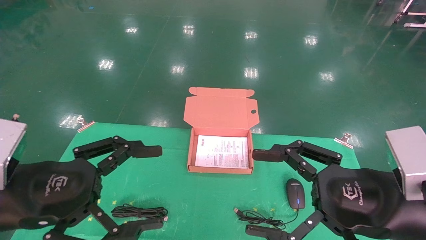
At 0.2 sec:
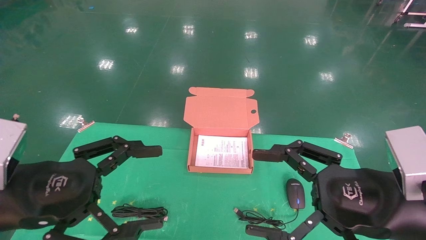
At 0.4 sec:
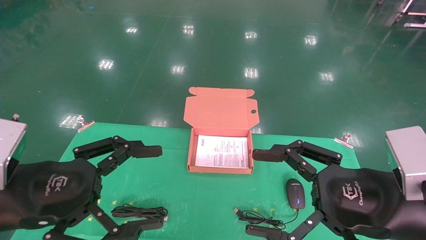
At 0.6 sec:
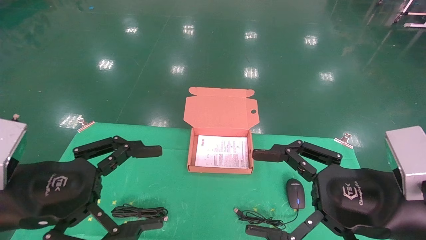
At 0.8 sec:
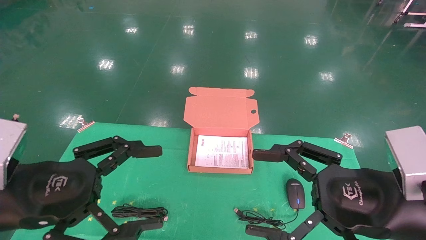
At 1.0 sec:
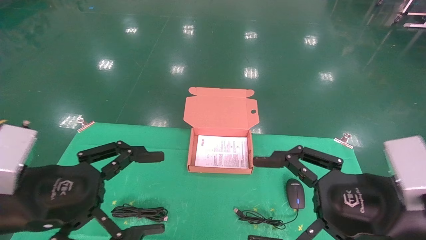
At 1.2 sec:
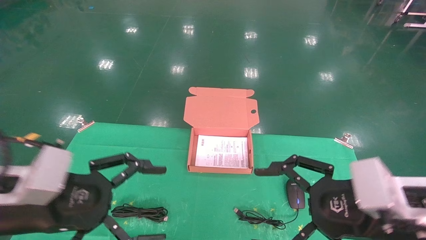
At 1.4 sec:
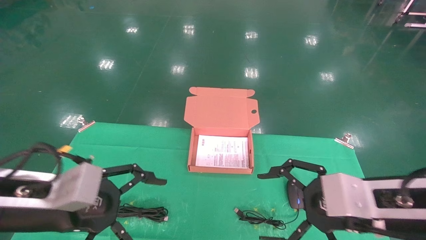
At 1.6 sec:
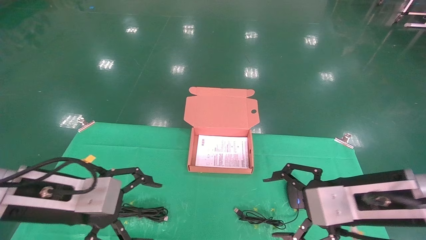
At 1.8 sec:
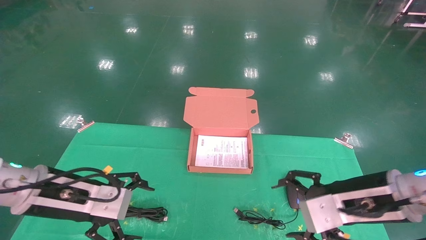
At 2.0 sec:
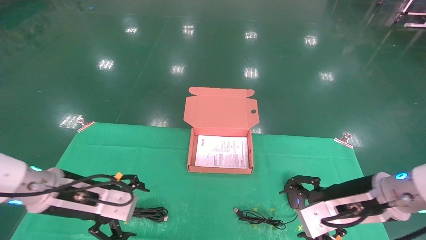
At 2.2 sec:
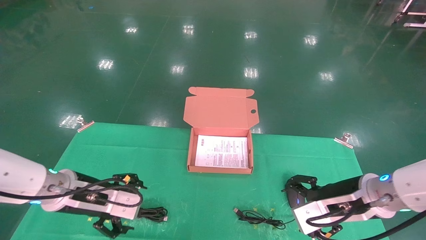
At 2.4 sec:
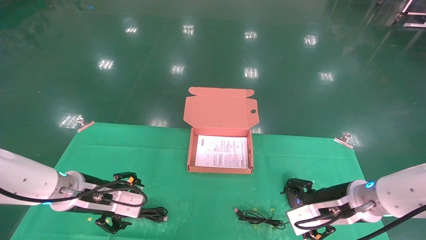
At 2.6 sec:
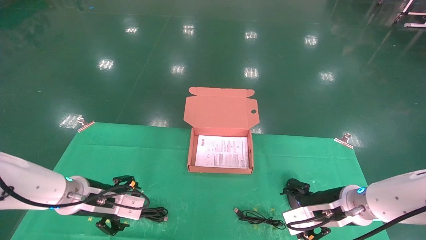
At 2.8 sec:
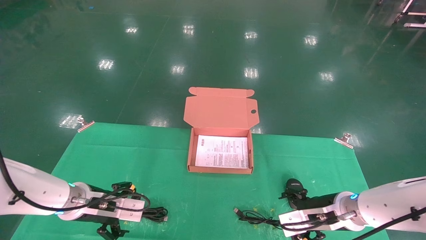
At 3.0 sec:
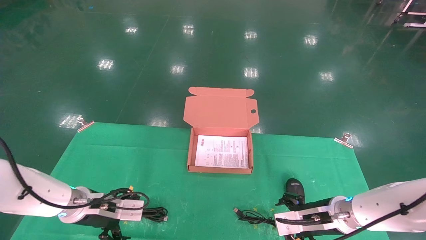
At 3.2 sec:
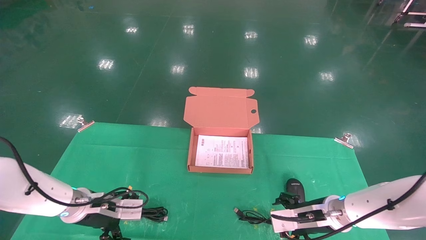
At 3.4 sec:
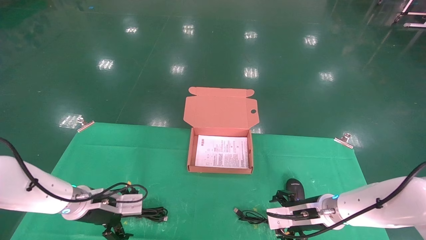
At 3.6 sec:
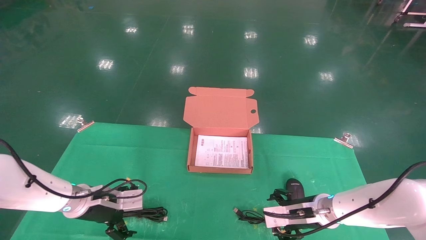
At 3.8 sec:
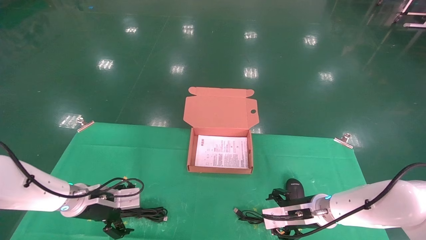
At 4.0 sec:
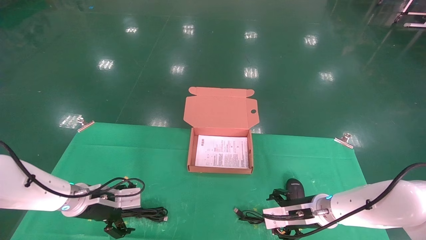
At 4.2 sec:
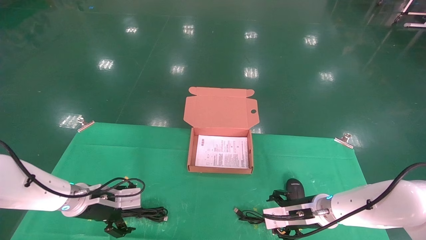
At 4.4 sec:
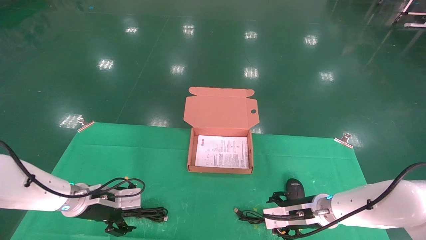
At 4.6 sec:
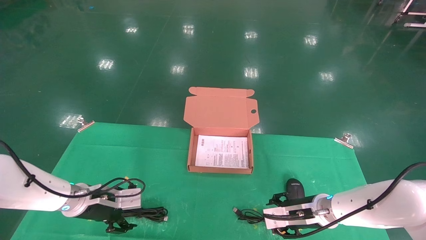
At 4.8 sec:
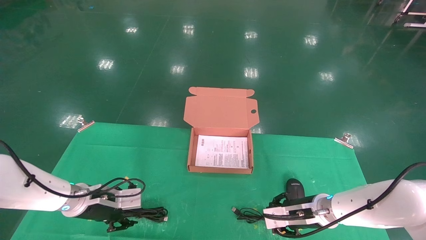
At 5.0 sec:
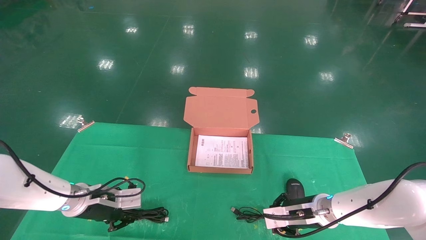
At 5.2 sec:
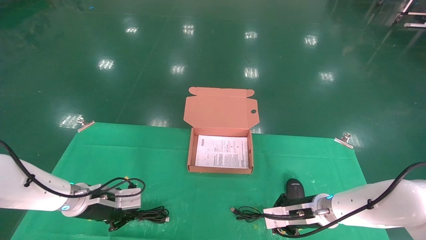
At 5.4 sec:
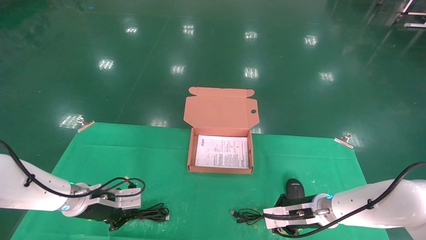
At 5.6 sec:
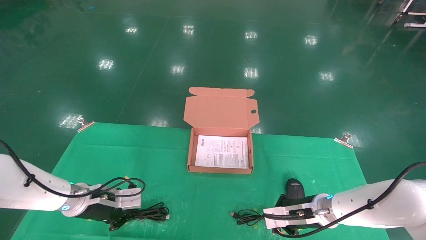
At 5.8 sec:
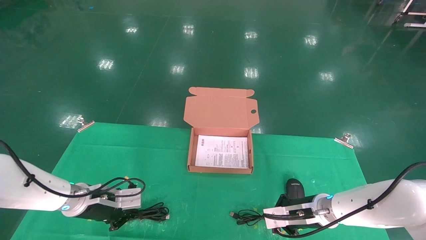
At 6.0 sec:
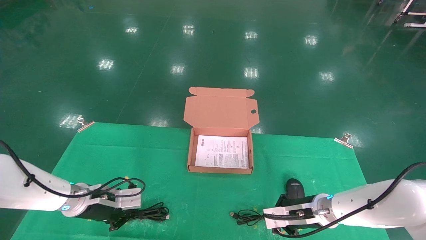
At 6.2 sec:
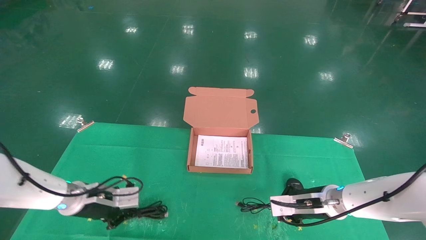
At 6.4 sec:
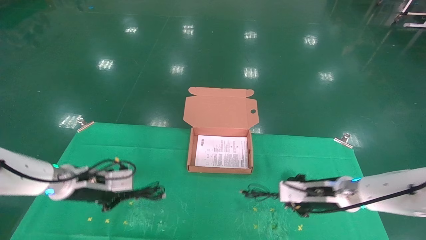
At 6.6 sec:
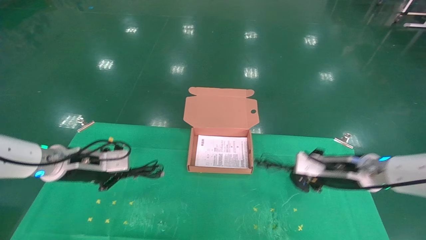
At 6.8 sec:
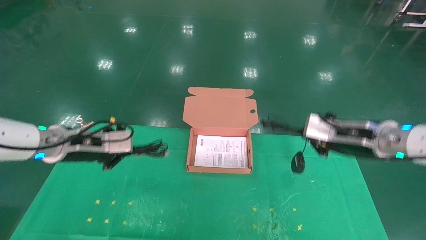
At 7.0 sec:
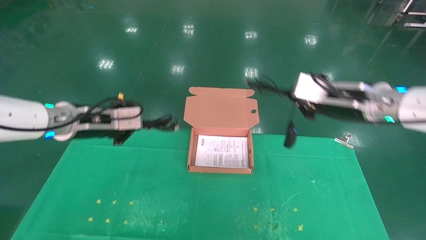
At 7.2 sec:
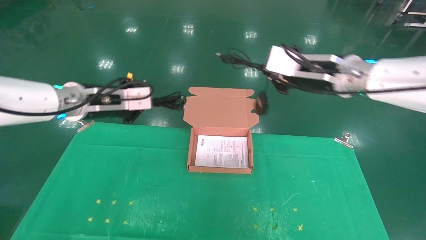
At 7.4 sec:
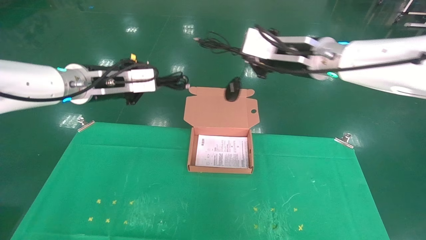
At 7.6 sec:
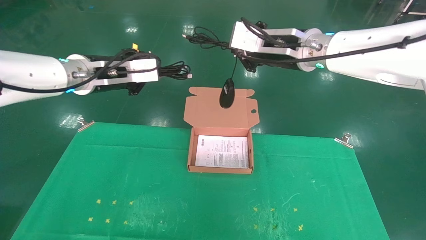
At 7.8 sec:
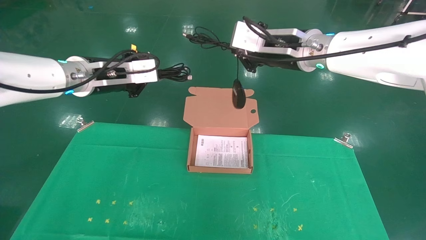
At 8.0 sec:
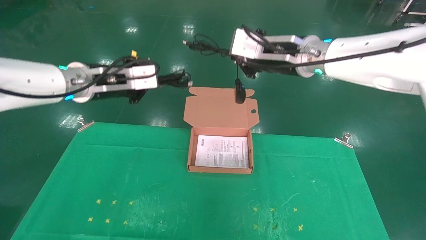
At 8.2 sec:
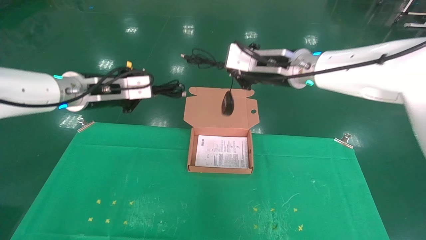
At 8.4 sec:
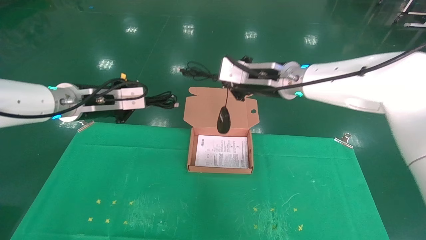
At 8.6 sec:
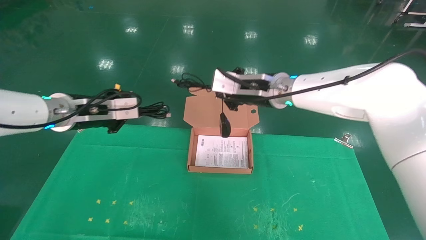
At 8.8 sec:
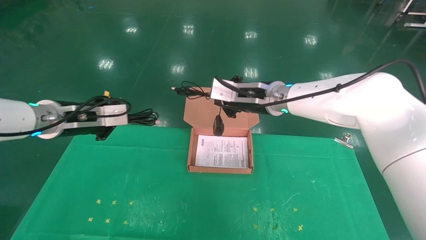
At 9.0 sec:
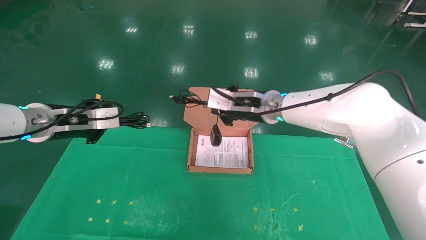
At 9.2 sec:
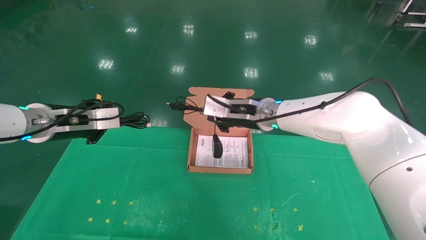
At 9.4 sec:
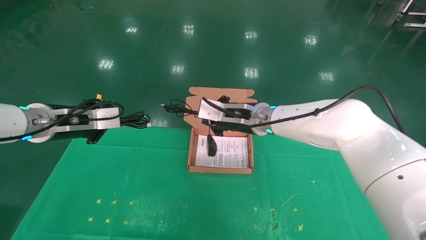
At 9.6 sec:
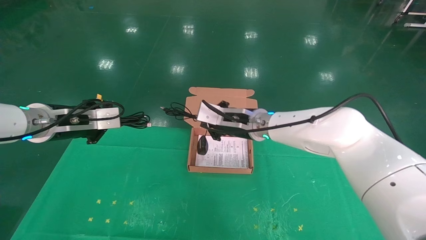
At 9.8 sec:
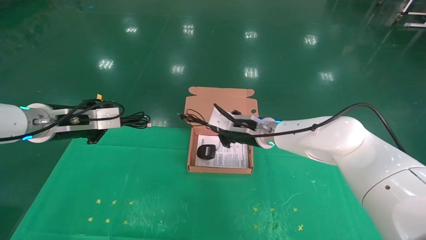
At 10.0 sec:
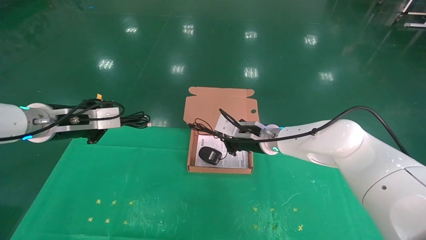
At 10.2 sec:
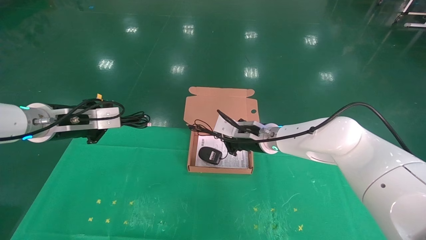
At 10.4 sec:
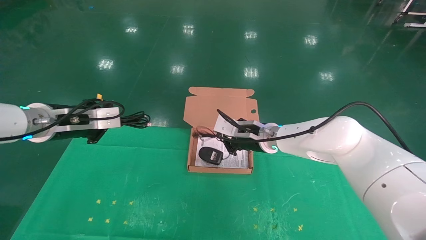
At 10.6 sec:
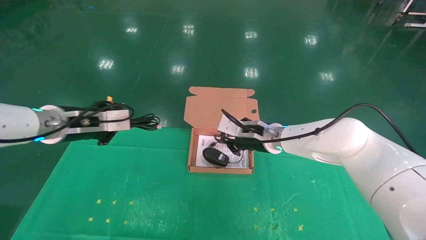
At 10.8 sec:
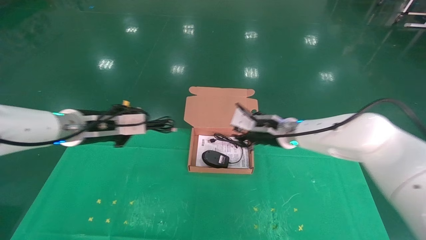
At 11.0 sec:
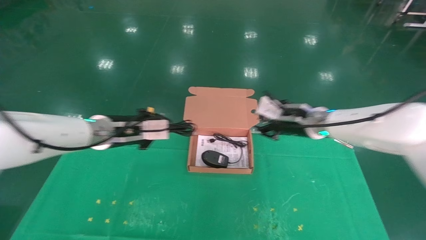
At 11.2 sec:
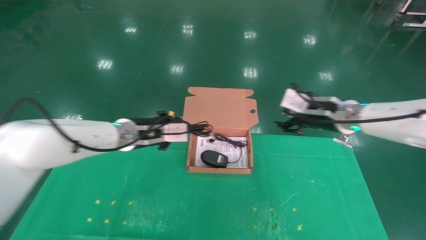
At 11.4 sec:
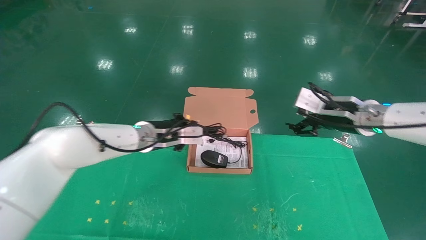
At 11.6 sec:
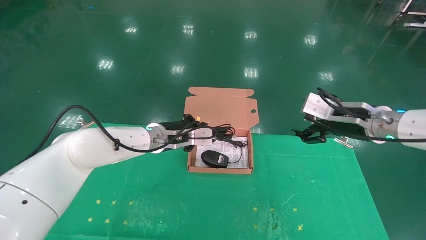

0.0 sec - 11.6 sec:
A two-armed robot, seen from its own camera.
Task of the whole recording: grasp data cable left put into box grasp mouse right put into box.
Step, 1.0 sec - 5.4 sec: Grab and pick up both the mouse and power cord from the accessory packaging area at the same time.
1.4 sec - 2.8 sec: Both grippers travel together forward and downward, some 15 cm.
2.8 sec - 4.4 sec: The left gripper shifts by about 5 cm; the right gripper shifts by roughly 5 cm.
4.4 sec - 5.8 sec: The left gripper closes its fingers.
5.8 sec - 7.2 sec: Both grippers move upward, approximately 25 cm.
7.2 sec - 8.8 sec: The right gripper heads to the left and forward, covering approximately 10 cm.
8.8 sec - 10.2 sec: The right gripper goes some 10 cm downward.
10.2 sec - 11.6 sec: The left gripper goes about 20 cm to the right and forward; the right gripper goes roughly 20 cm to the right and backward, and opens up.

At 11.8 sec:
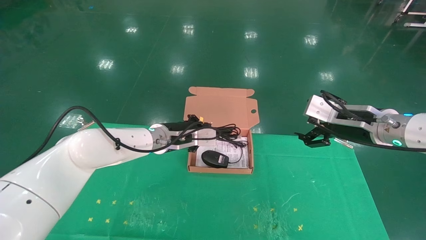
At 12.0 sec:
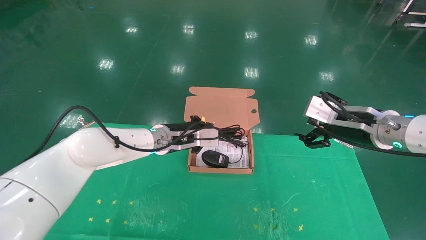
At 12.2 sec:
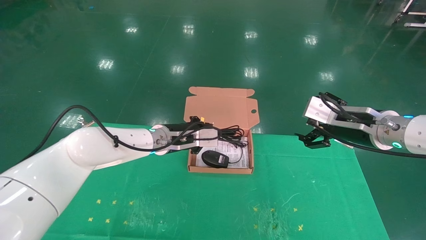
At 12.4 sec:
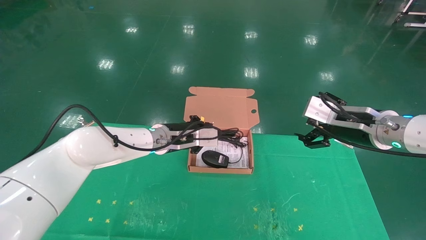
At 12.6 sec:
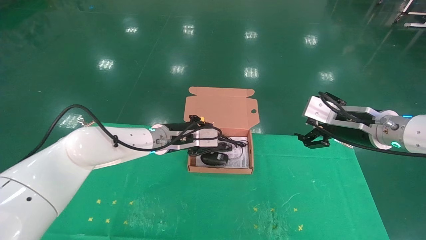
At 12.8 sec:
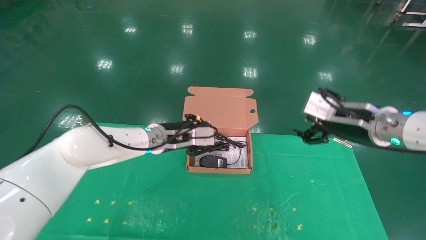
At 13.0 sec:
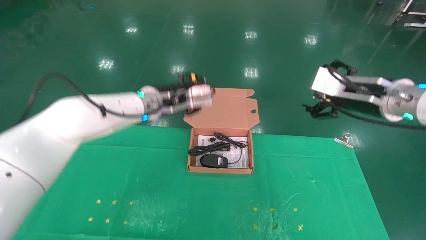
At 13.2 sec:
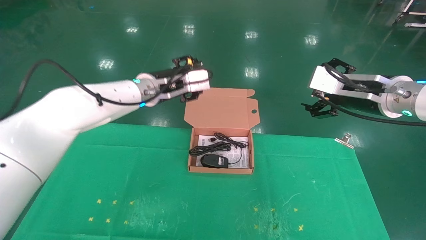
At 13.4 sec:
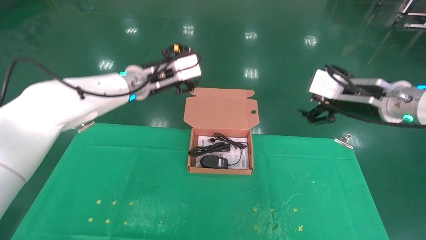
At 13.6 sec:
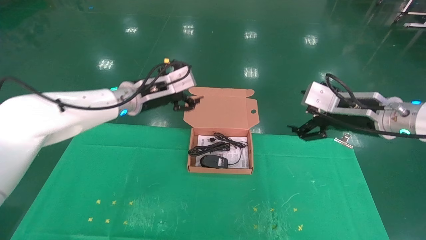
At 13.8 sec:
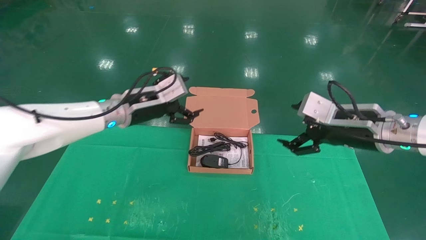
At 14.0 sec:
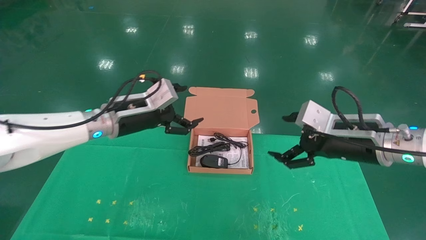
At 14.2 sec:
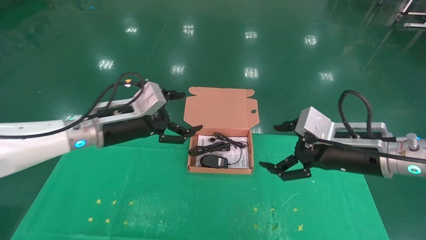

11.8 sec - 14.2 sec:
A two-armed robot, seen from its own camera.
Task of the whole recording: grasp data cable left put into box grasp mouse right put into box.
11.8 sec - 13.0 sec: The right gripper changes place by some 5 cm; the left gripper travels upward by about 10 cm, and opens.
13.0 sec - 14.2 sec: The right gripper travels downward and backward by approximately 10 cm; the left gripper goes approximately 10 cm backward and to the left, and opens.
